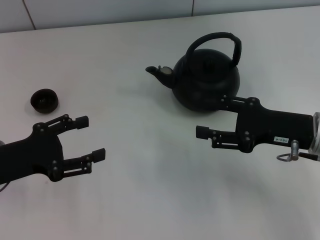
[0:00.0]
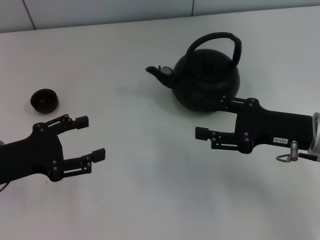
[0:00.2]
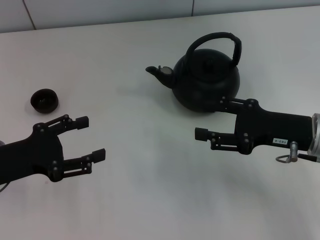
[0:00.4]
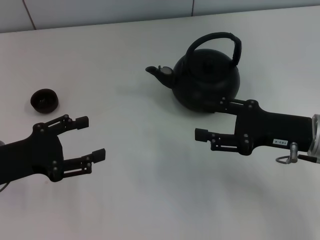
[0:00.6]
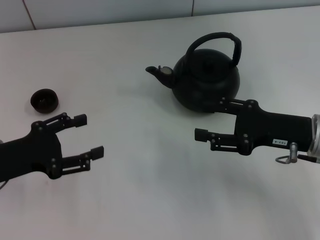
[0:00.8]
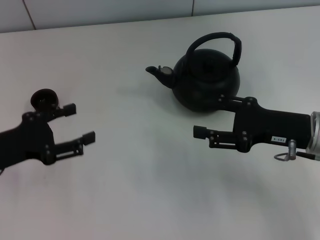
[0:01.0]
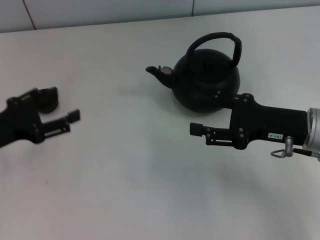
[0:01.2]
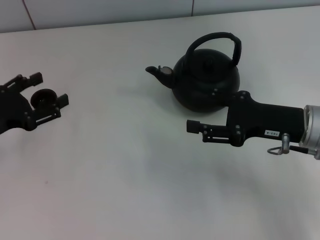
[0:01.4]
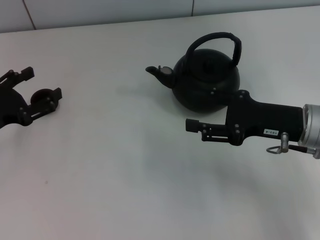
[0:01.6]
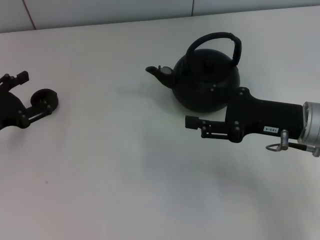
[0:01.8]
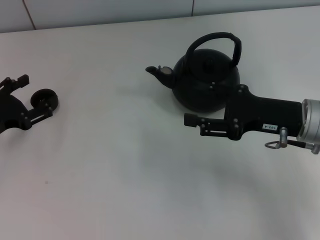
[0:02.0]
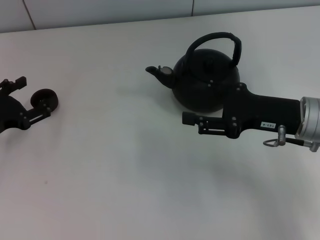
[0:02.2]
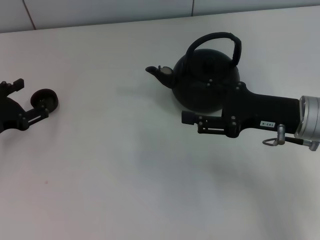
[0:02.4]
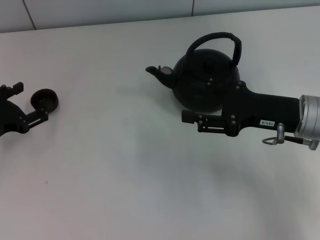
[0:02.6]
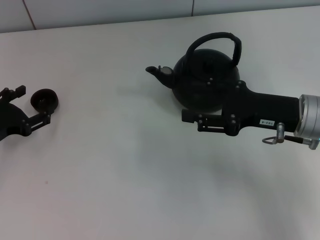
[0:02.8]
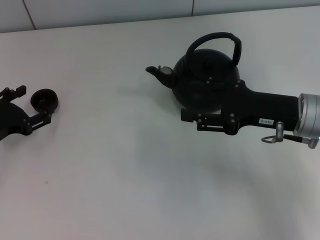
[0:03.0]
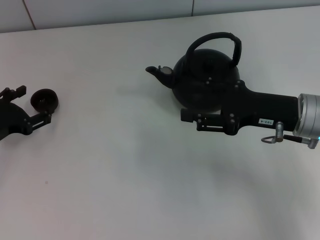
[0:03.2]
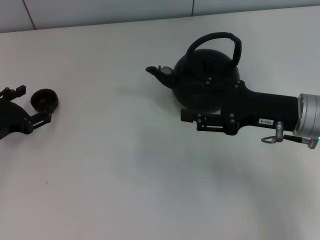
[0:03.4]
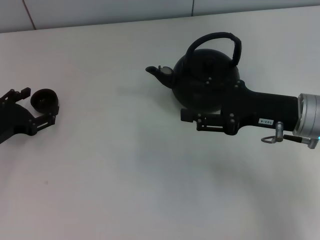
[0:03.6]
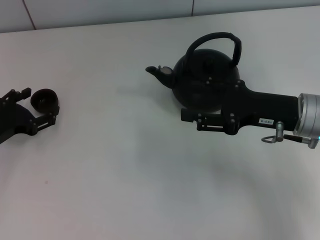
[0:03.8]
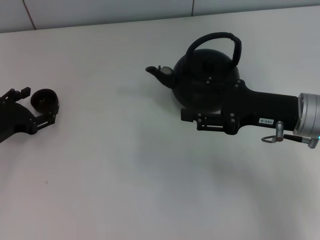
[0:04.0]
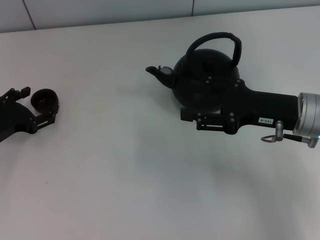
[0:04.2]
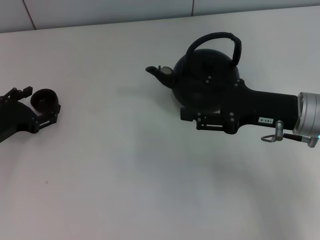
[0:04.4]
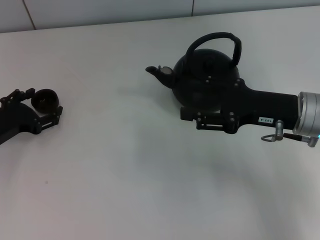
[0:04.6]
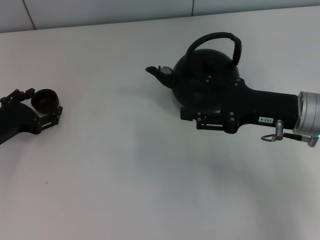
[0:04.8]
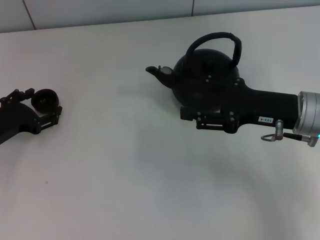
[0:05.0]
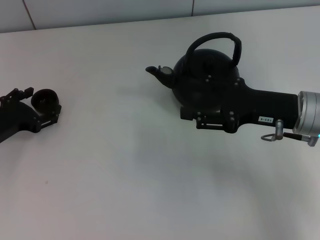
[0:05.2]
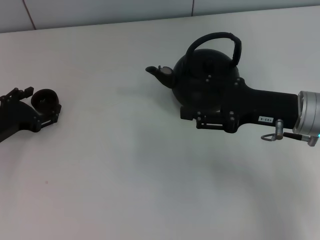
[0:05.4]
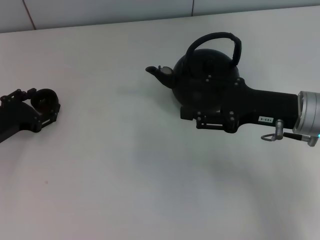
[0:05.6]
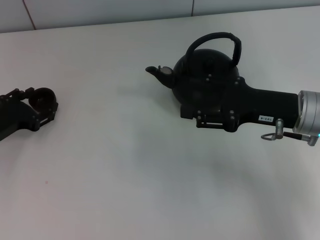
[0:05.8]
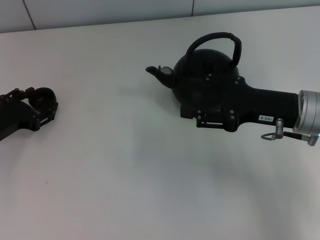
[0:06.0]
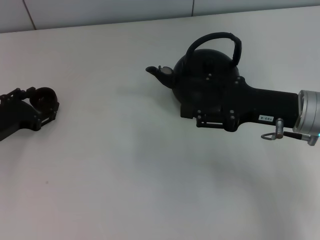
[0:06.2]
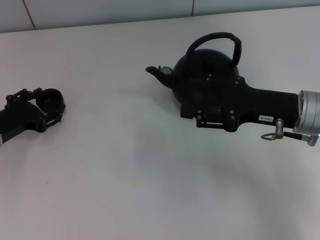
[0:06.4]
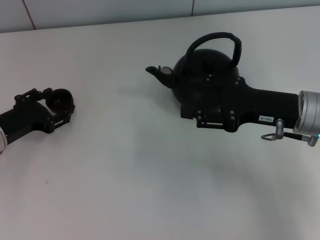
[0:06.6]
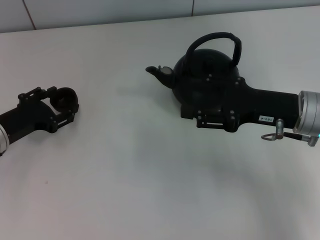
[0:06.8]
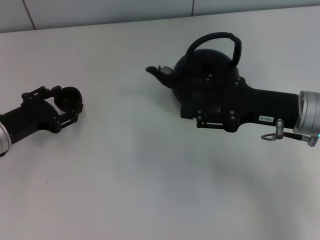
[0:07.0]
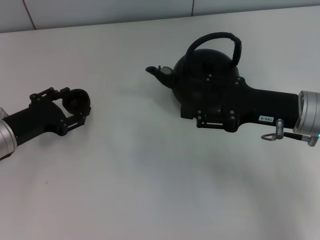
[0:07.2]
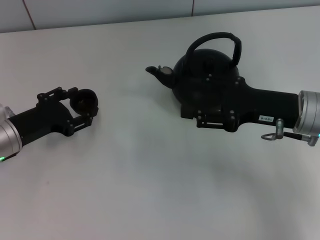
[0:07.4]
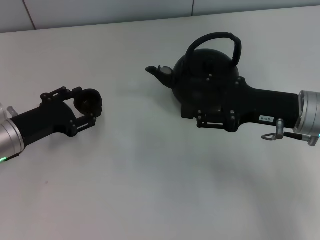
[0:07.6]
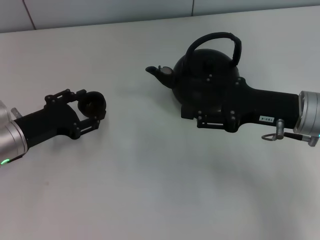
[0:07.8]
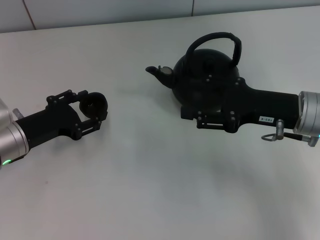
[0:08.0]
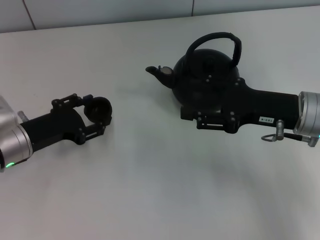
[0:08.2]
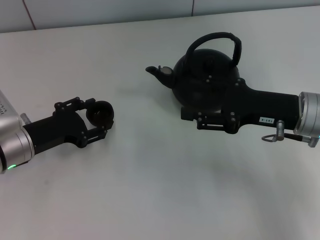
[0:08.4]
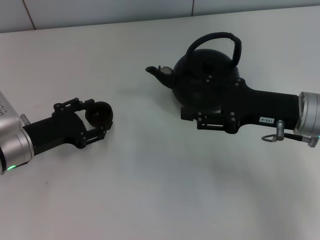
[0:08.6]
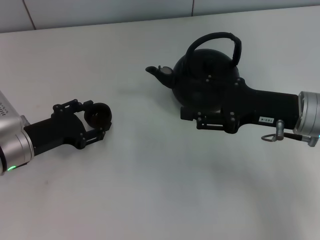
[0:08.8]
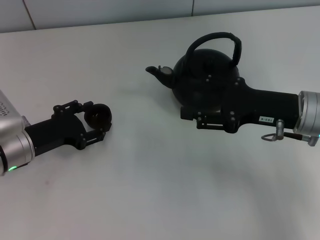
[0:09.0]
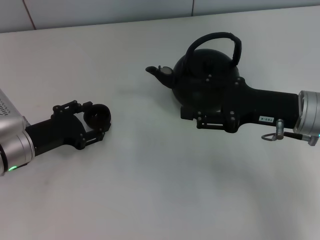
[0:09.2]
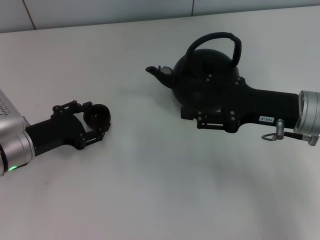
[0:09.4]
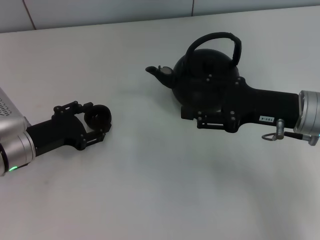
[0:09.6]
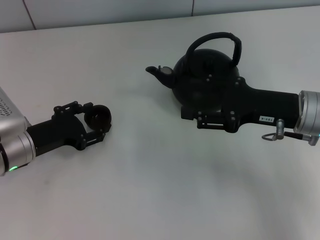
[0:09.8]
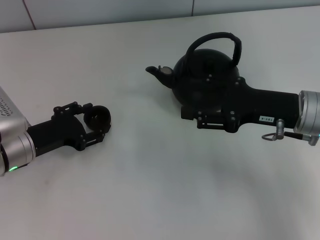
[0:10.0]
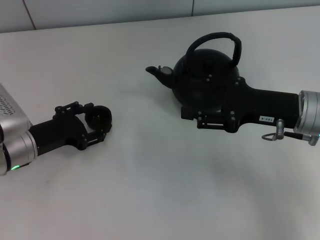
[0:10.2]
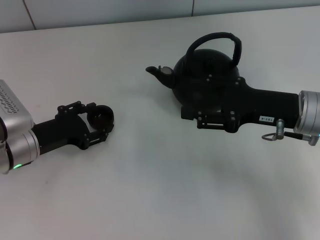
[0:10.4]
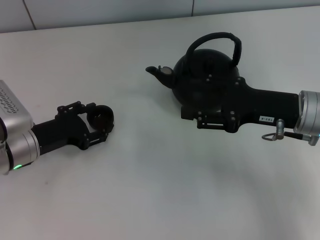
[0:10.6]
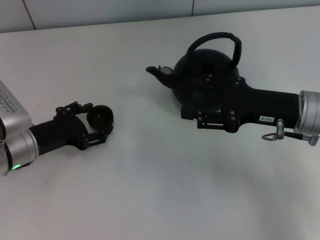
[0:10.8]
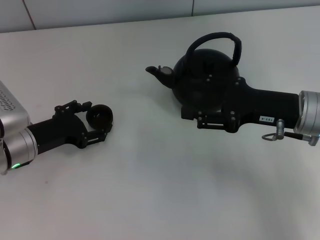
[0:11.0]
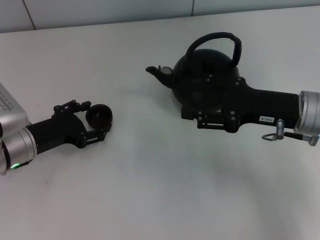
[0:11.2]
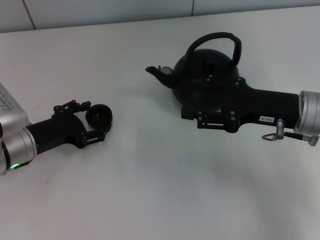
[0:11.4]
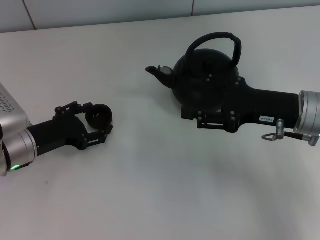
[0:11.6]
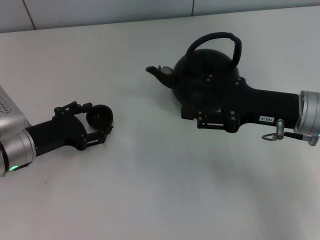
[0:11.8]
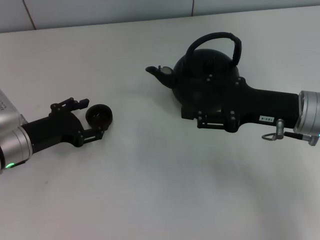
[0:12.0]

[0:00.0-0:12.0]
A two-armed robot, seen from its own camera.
Task of the whole recording: Grasp the handle of the teapot with one hand and pour tea into the teacup.
Step, 0:00.0 to 0:06.6: Pick up the teacup with the left gripper.
0:01.6 to 0:04.4: The grippers stay close to where they were, moving slightly.
0:04.4 to 0:06.0: The left gripper closes up.
0:06.0 to 0:07.6: The grippers move only a little.
0:07.6 to 0:09.0: There are only small adjustments of the grippers.
0:09.0 to 0:10.4: Both grippers stay put.
0:10.4 to 0:12.0: The left gripper opens up.

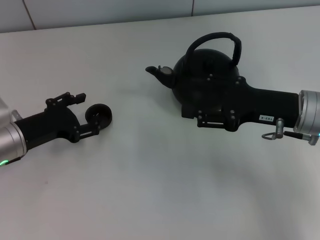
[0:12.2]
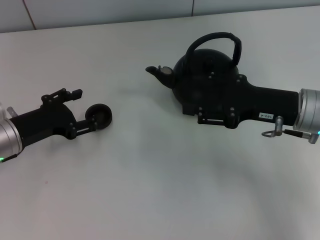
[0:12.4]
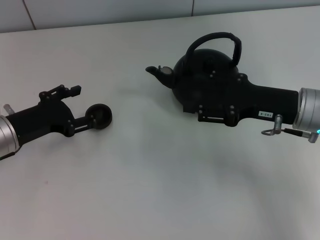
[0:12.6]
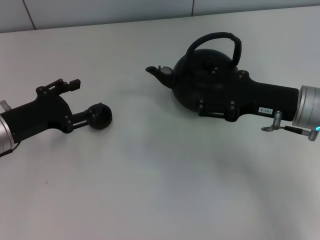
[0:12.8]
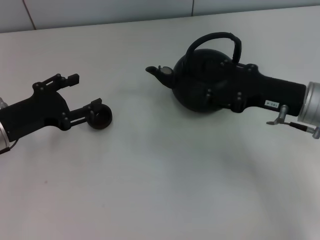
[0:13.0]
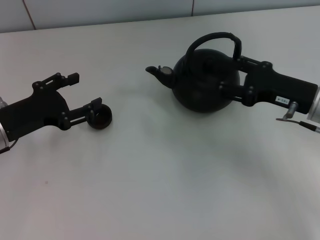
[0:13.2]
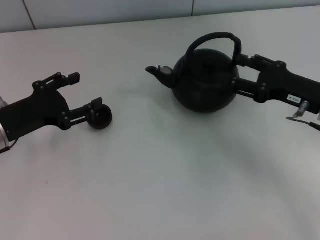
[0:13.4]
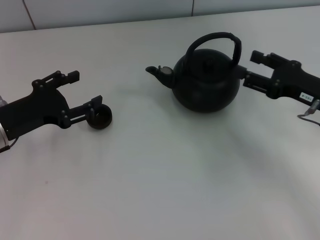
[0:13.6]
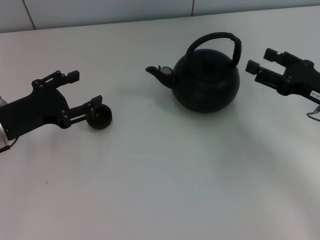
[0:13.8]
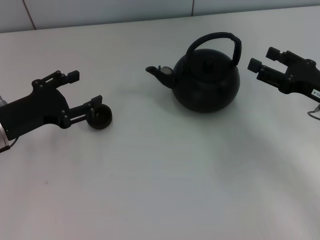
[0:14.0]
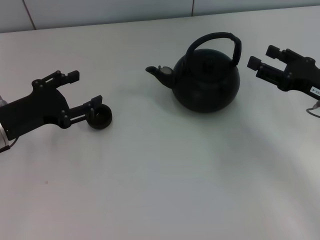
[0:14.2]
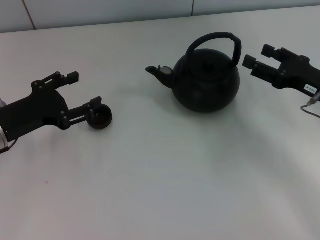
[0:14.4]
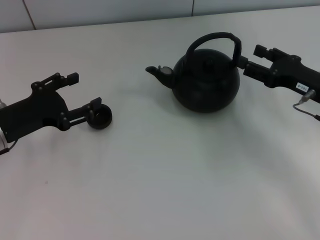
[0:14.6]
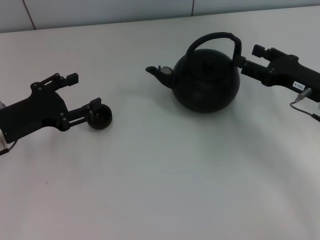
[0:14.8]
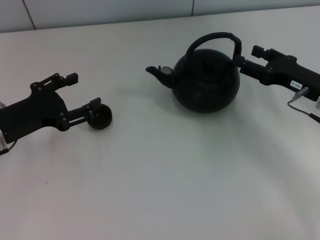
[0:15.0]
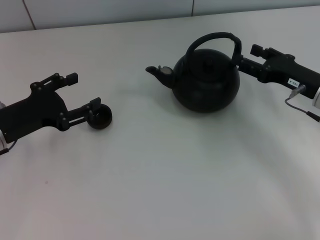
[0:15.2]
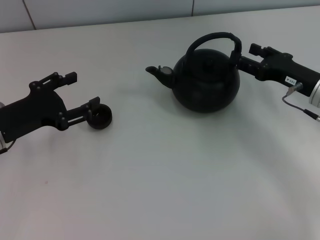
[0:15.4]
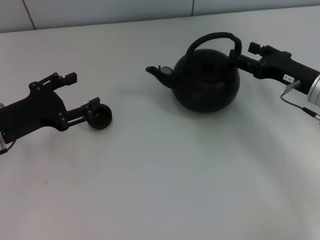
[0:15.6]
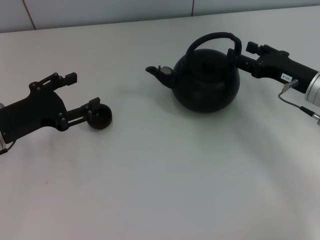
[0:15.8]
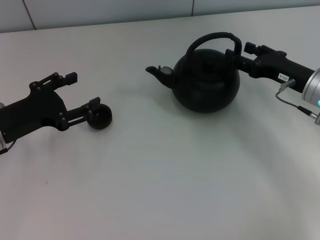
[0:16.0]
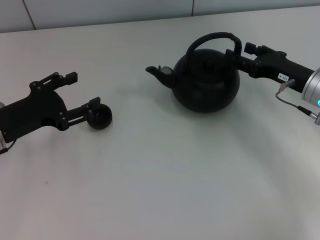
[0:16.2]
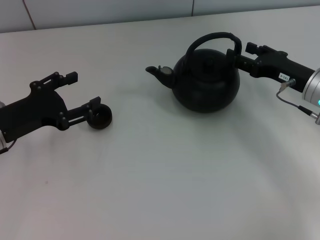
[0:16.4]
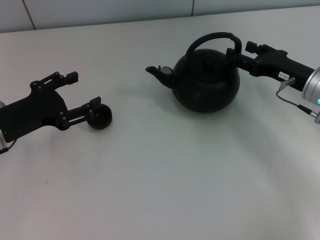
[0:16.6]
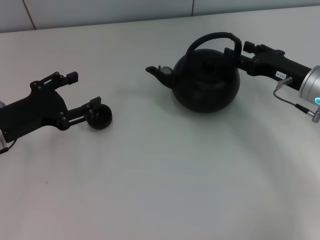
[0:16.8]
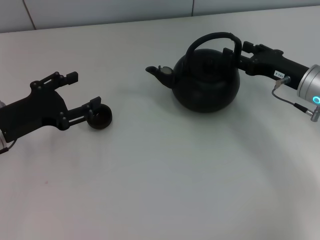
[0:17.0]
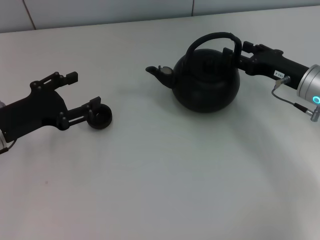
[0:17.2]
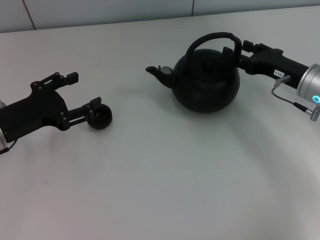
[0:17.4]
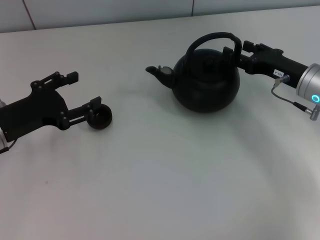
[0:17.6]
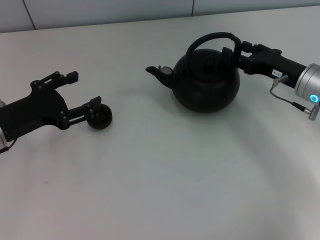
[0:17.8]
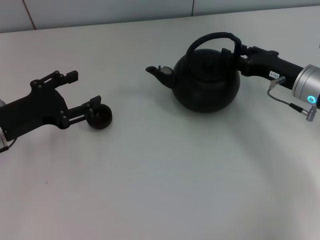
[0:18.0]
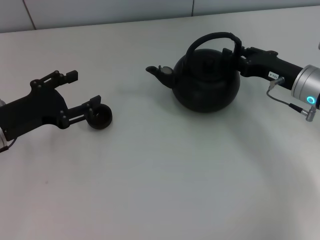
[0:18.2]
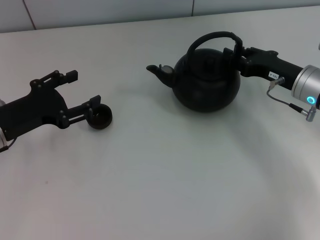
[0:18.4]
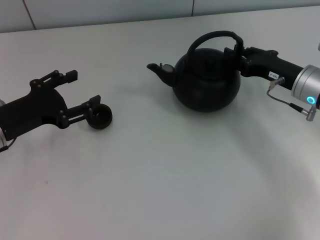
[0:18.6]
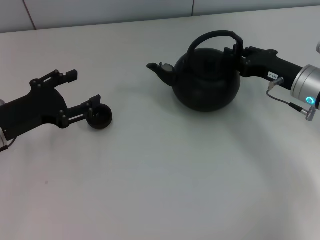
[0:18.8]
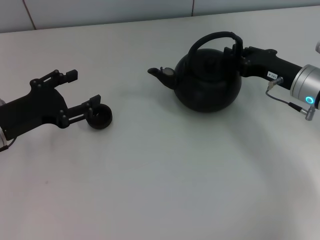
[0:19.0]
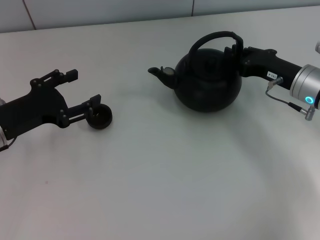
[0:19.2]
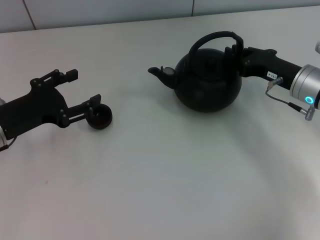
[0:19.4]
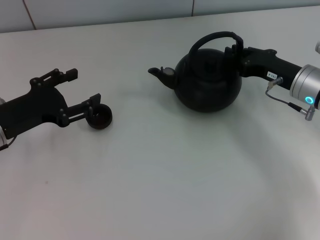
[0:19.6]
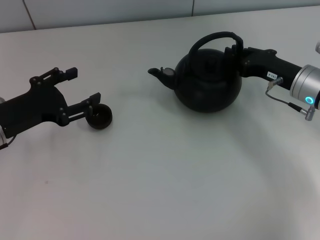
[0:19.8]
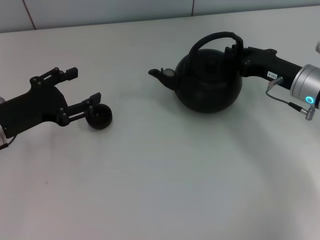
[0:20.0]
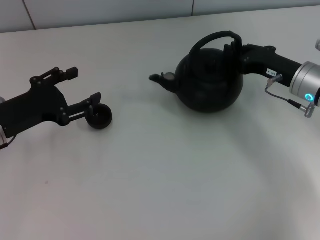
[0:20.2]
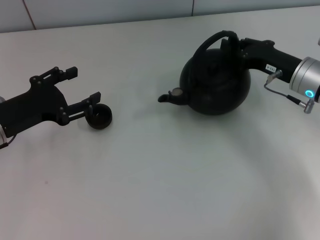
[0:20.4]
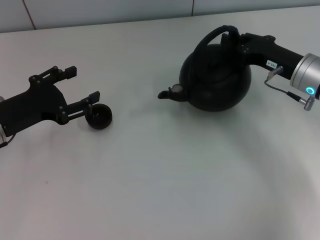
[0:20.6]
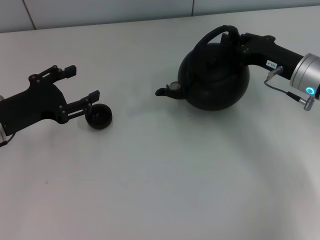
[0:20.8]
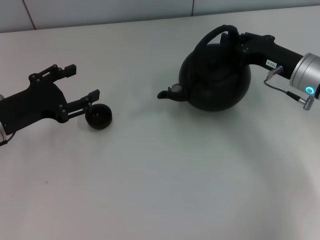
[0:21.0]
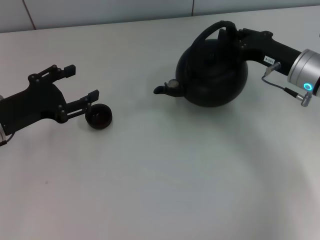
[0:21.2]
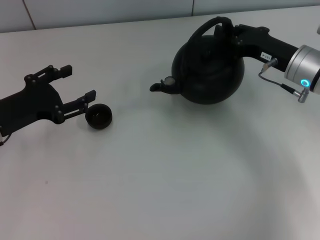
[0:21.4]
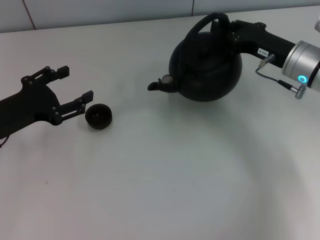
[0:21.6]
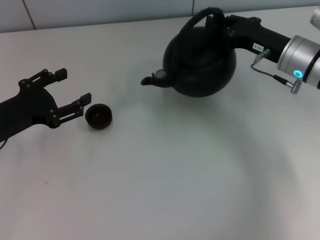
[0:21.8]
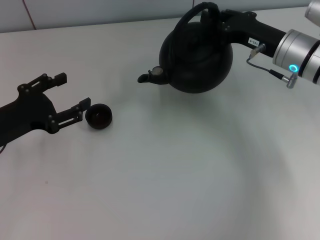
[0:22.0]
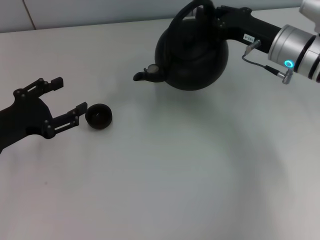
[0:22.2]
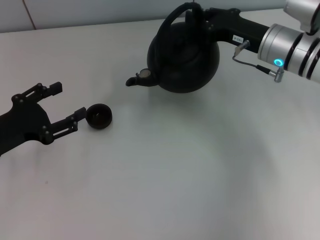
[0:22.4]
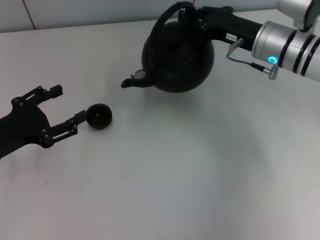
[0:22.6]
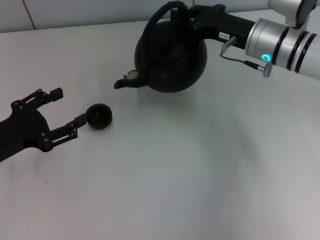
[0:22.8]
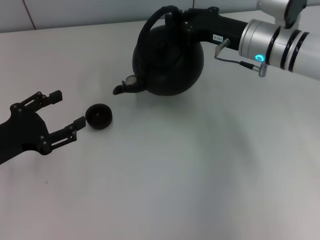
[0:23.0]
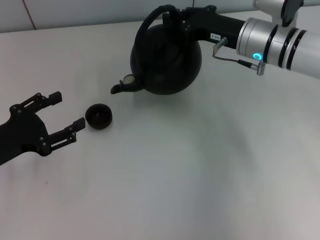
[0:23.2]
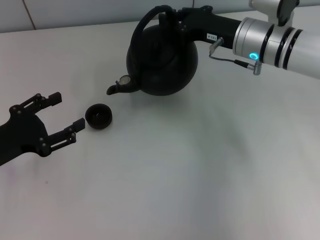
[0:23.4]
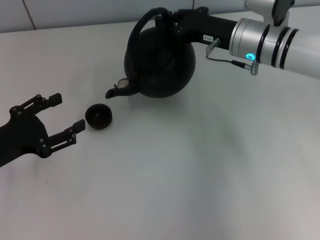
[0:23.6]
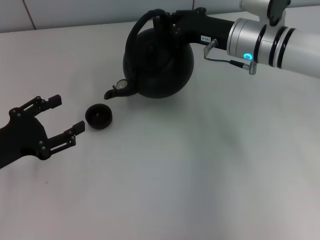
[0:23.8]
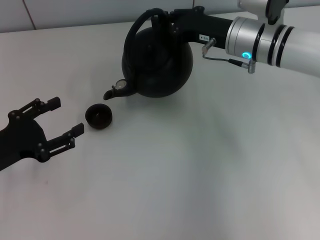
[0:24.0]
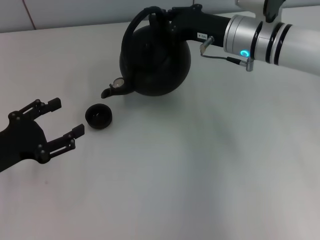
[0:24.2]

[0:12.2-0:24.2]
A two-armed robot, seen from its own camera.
Task of the whole recording: Grasp the handle of the teapot with one hand and pour tea into the teacup.
Step, 0:12.4 to 0:20.6: Pick up the teapot with the right gripper.
0:12.2 to 0:13.8: The right gripper shifts roughly 5 cm to the right.
0:13.8 to 0:15.2: The grippers move only a little.
0:15.2 to 0:18.2: There are only small adjustments of the grippers.
0:18.2 to 0:19.8: The right gripper closes its fingers.
0:19.8 to 0:21.2: The grippers move only a little.
0:21.2 to 0:22.6: The right gripper goes roughly 5 cm to the left.
0:22.6 to 0:24.2: The grippers move only a little.
